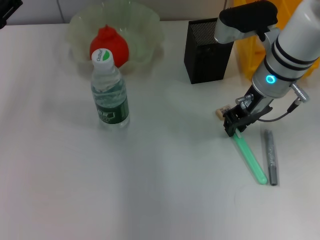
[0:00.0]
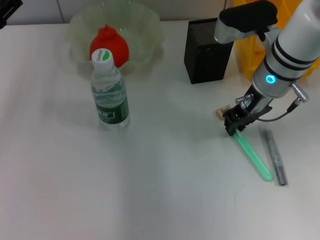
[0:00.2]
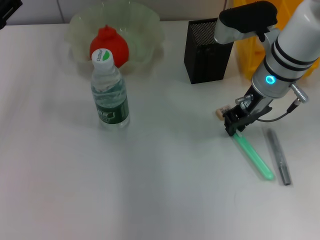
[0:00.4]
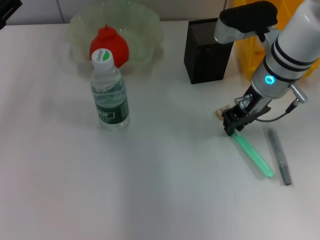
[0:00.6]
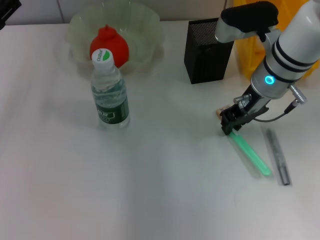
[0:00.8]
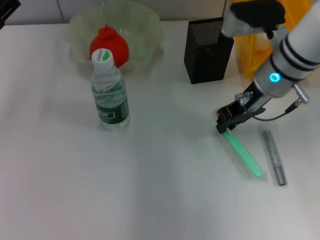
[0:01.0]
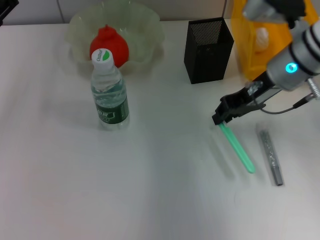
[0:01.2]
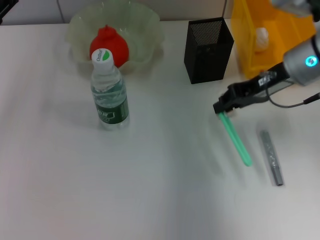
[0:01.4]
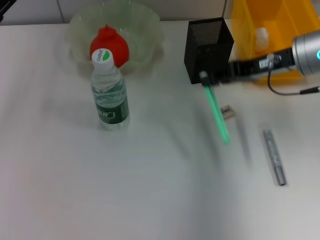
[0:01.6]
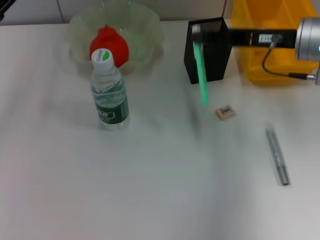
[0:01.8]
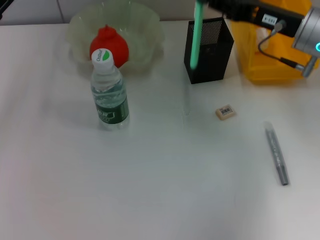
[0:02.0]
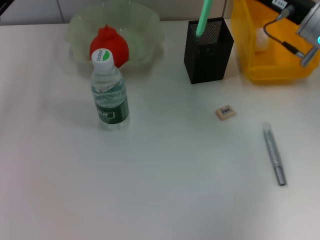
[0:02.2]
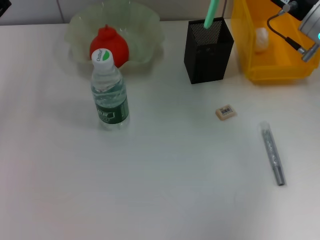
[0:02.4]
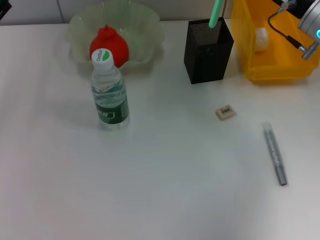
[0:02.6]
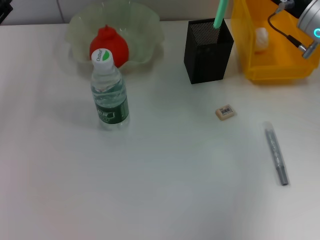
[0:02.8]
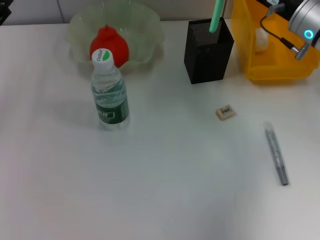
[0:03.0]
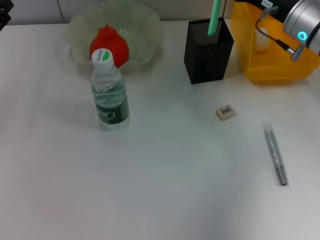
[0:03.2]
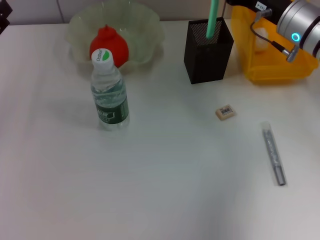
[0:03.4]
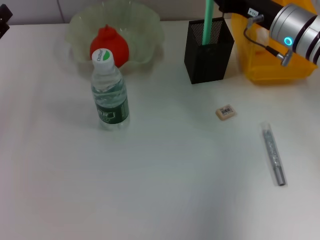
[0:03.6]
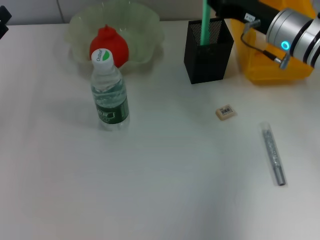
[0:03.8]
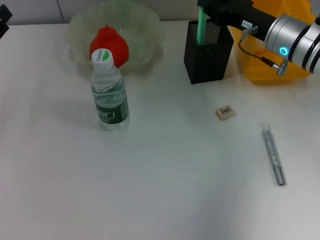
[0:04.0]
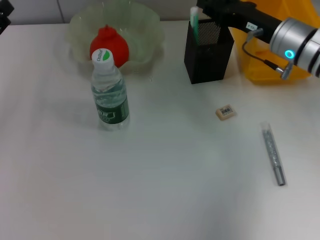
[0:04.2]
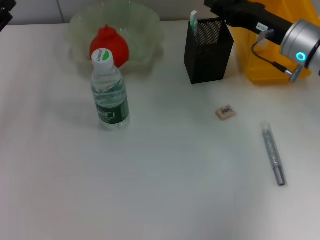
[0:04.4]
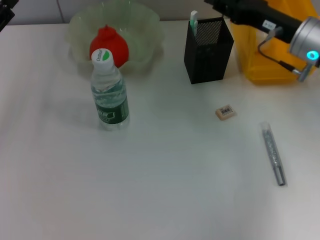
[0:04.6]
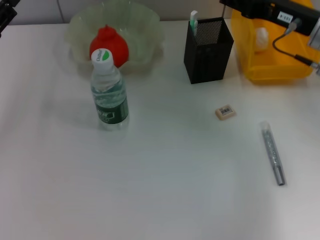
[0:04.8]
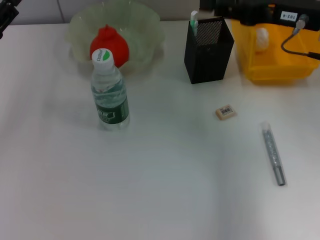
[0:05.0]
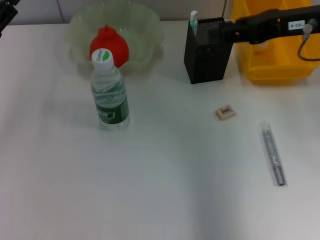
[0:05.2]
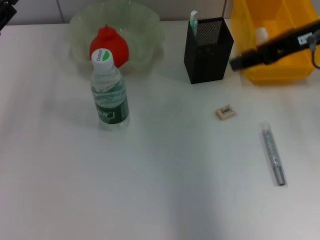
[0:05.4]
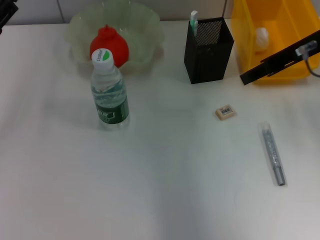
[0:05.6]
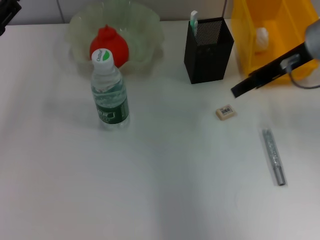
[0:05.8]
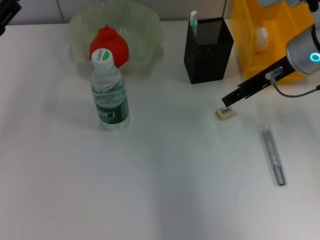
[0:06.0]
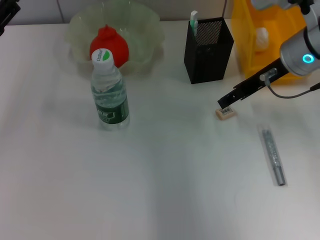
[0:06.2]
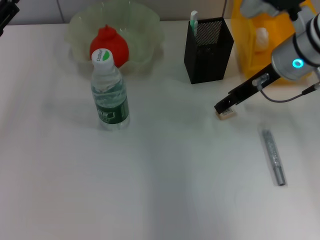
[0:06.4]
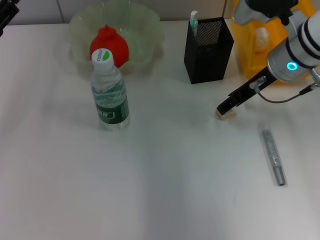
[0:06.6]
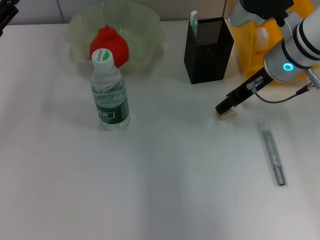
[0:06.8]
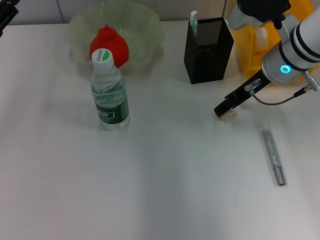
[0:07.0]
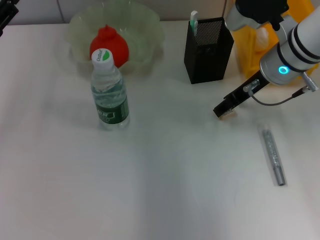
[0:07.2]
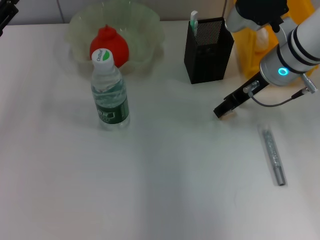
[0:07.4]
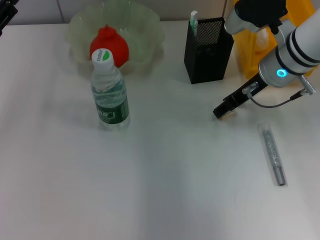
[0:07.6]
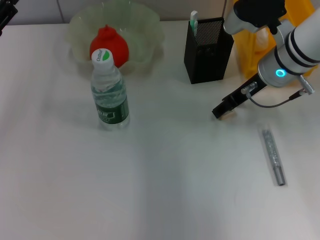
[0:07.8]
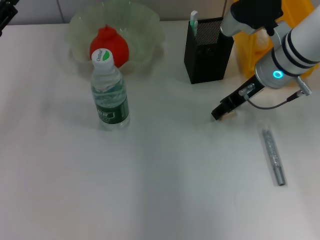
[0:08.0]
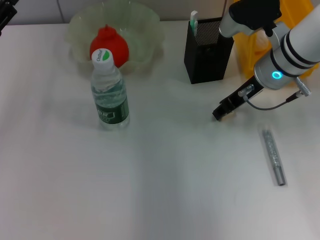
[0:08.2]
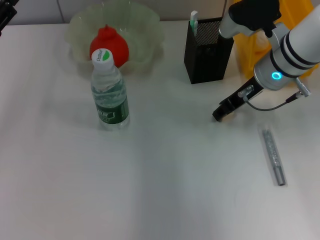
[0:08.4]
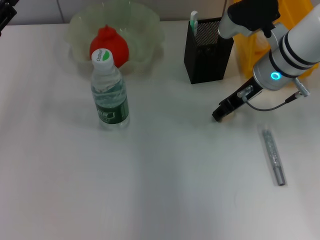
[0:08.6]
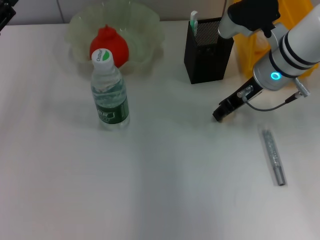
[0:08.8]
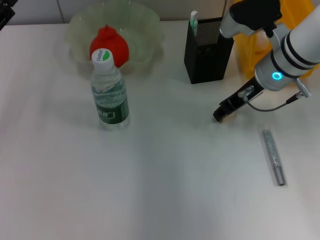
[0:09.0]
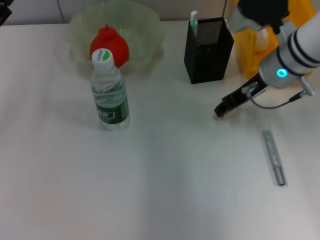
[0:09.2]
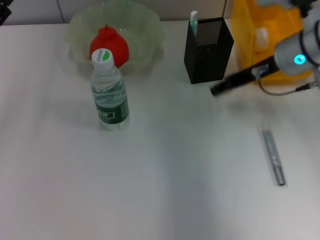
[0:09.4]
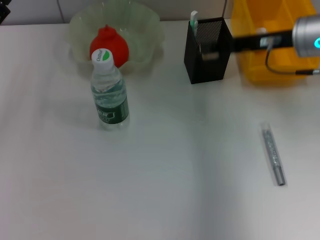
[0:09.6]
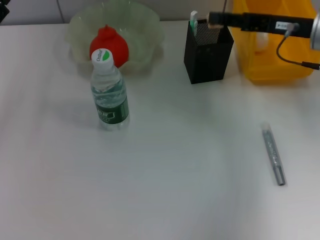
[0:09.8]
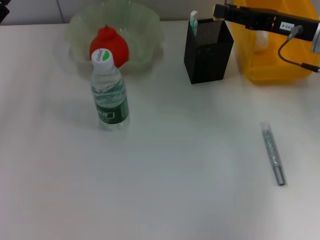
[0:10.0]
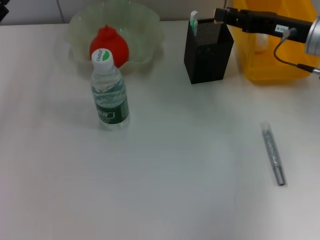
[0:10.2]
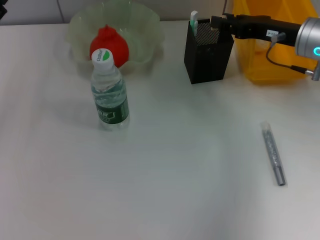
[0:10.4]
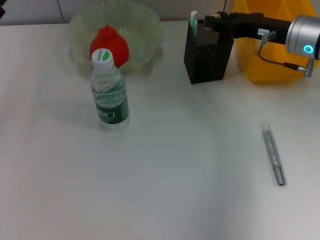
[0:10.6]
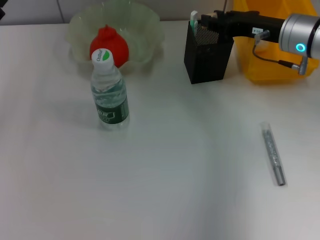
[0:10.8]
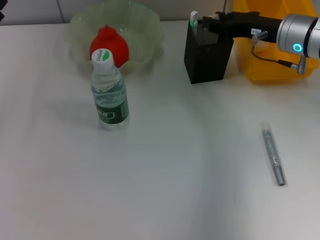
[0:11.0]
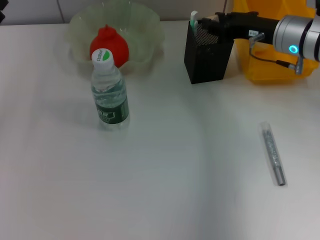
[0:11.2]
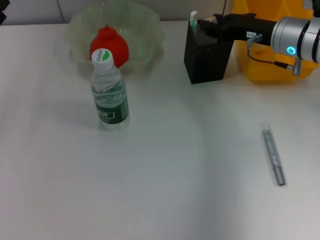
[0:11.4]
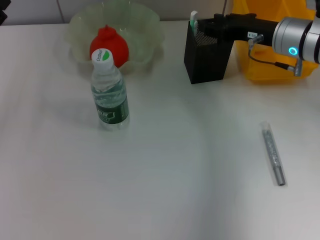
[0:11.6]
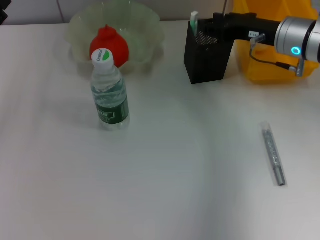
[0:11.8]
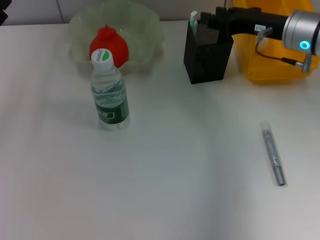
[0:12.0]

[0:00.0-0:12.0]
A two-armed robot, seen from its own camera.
Step, 0:00.2 to 0:04.0: Place the blue utility knife into the pen holder with the right hand.
Step, 0:04.4 to 0:08.8: Grab the eraser with the right hand.
Step, 0:09.0 to 0:11.6: Put the eraser into the pen holder with the right hand.
0:00.0 to 0:01.6: The right gripper shifts about 5 cm to the right.
0:03.0 to 0:04.4: The right gripper opens its fingers.
0:04.4 to 0:06.0: The right gripper goes some 5 cm upward.
0:06.0 to 0:07.6: The right gripper changes place by roughly 5 cm.
0:07.6 to 0:09.0: Both grippers stay put.
0:09.0 to 0:10.4: The right gripper is displaced to the right by some 5 cm.
0:10.4 to 0:12.0: The grippers move only a little.

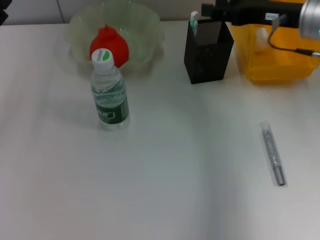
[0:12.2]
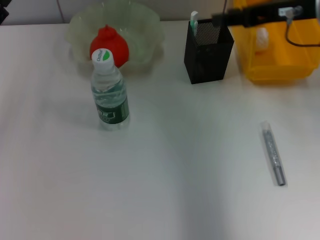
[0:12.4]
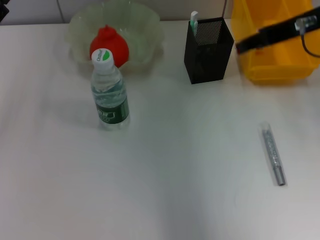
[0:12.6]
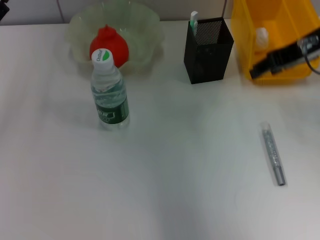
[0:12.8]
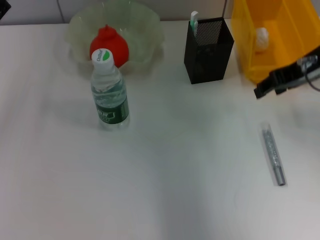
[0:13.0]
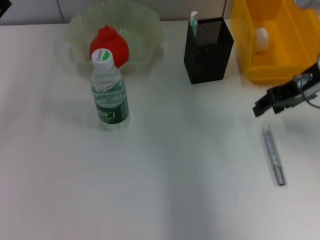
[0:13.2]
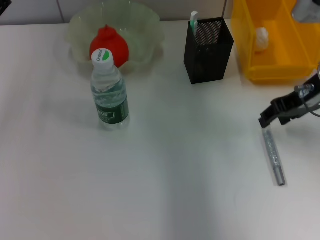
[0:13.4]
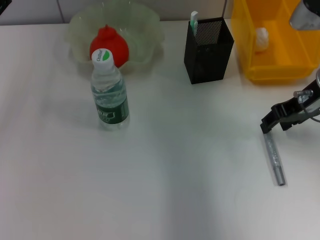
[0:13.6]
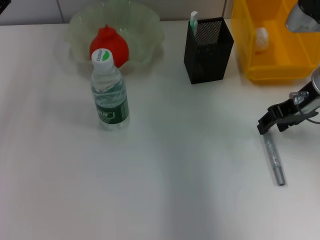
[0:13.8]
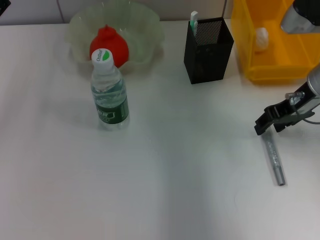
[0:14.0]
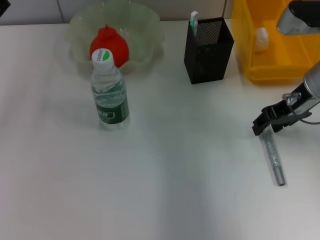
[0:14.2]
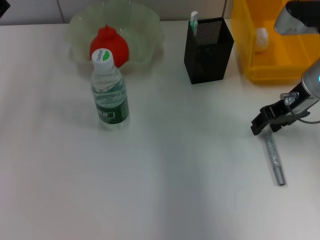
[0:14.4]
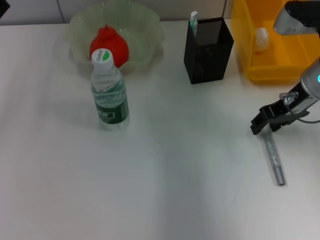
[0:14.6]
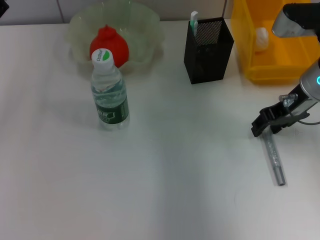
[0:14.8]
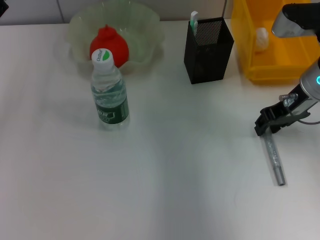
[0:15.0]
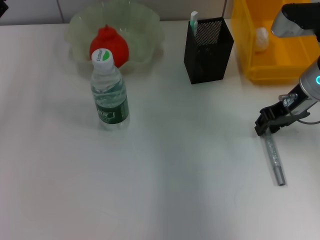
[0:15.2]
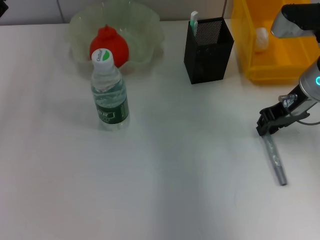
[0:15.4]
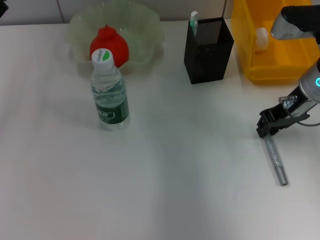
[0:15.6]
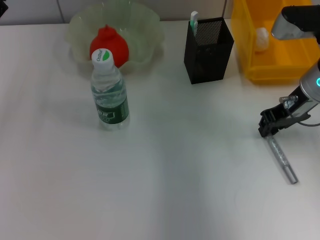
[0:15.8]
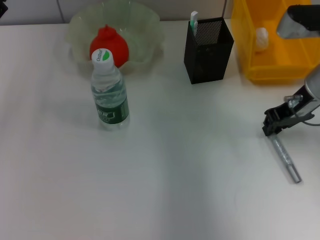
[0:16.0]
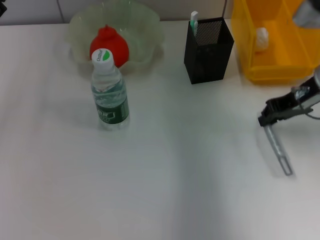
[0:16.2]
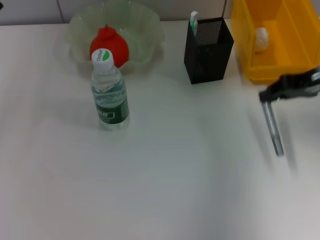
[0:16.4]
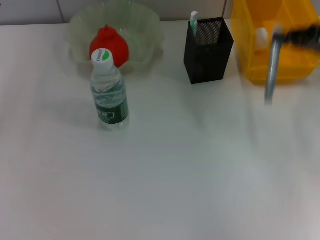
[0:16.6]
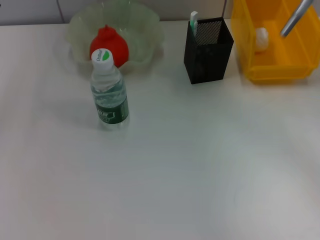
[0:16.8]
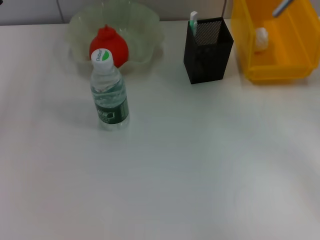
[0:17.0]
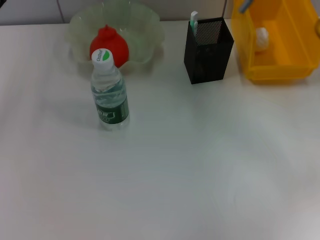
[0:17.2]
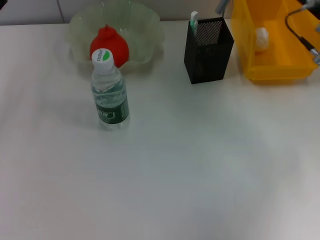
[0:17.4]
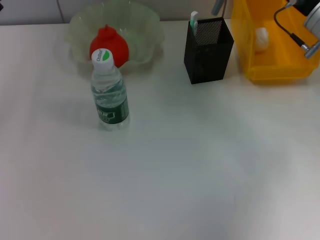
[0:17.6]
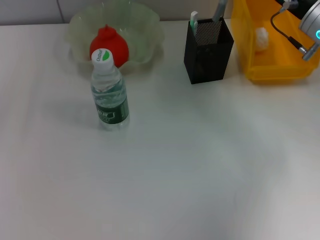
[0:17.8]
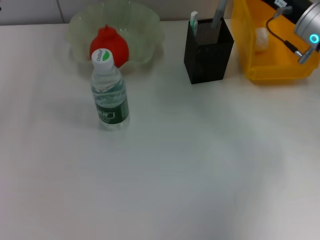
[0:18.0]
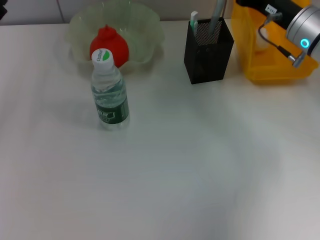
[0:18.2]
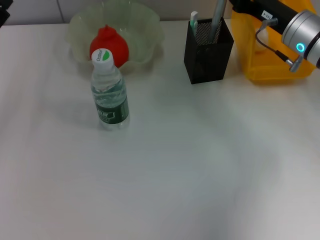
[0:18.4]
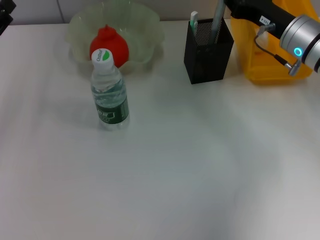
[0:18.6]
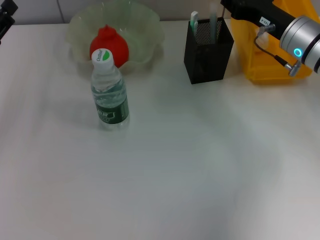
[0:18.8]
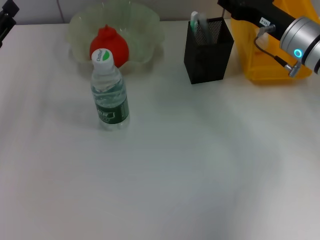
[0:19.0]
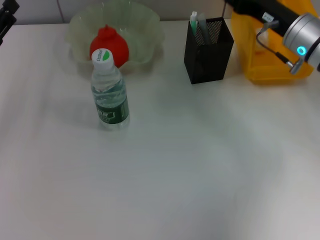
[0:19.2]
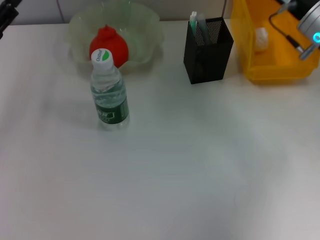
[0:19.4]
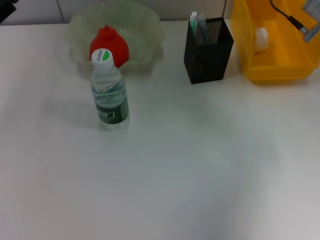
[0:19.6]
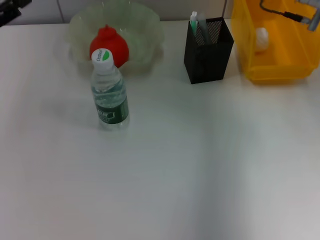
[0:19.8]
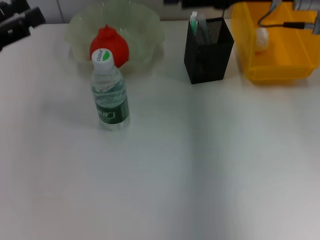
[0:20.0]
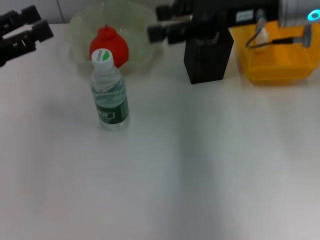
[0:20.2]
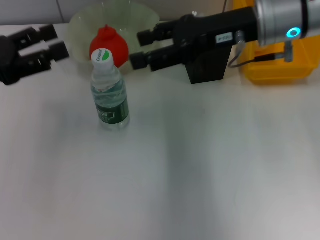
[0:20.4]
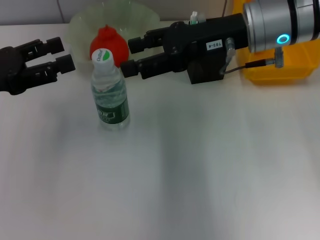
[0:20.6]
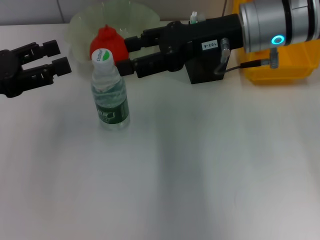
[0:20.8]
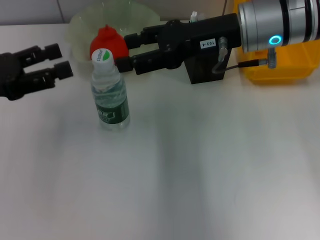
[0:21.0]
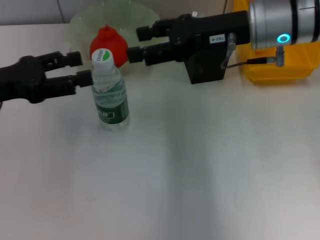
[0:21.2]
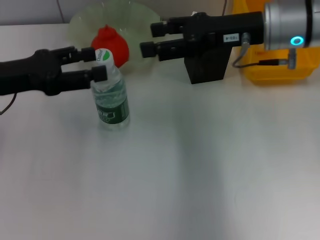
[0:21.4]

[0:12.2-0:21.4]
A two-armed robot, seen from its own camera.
Step, 0:12.2 to 0:15.8: Grab the gray glue with the right hand.
Step, 0:16.0 to 0:18.8: Place the gray glue into the pen holder with the right hand.
0:13.8 to 0:15.2: The grippers stay close to where they were, moving slightly.
0:15.2 to 0:16.8: The right gripper is displaced to the right by about 15 cm.
0:16.8 to 0:18.4: The right gripper shifts roughly 15 cm to the left and forward.
0:18.4 to 0:19.8: The right gripper moves upward, approximately 10 cm, and opens up.
0:19.8 to 0:21.4: The left gripper is displaced to the right by some 5 cm, while the right gripper shifts by some 5 cm.
